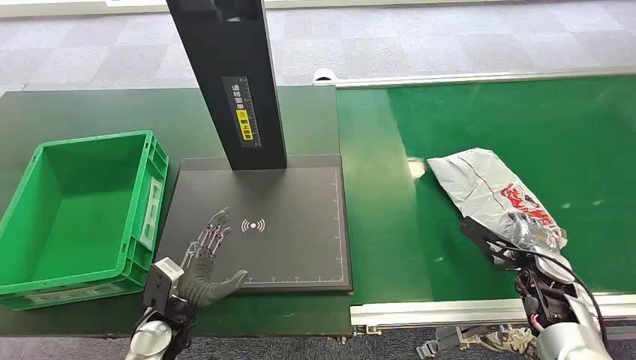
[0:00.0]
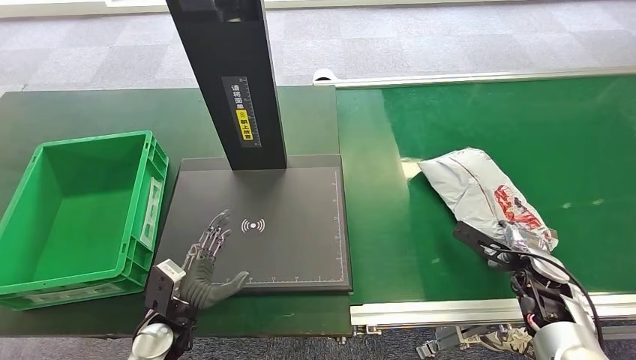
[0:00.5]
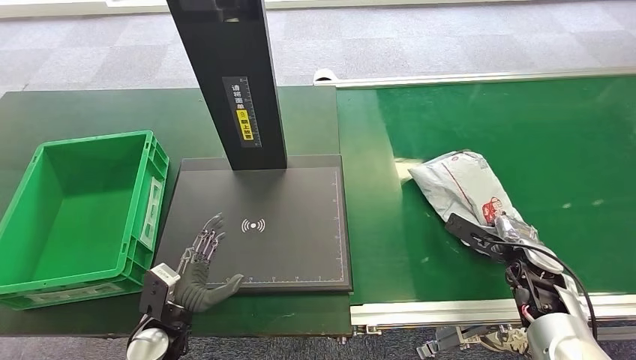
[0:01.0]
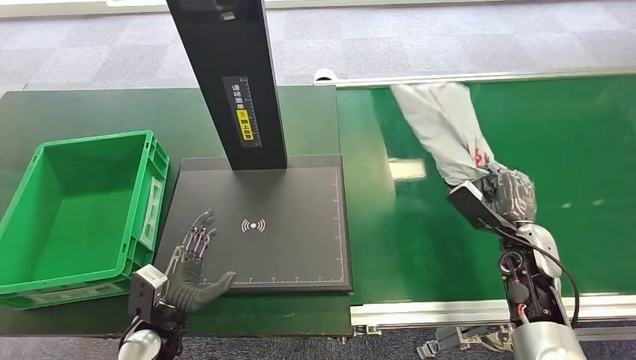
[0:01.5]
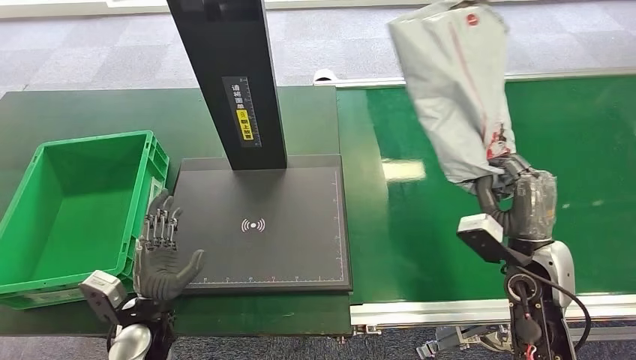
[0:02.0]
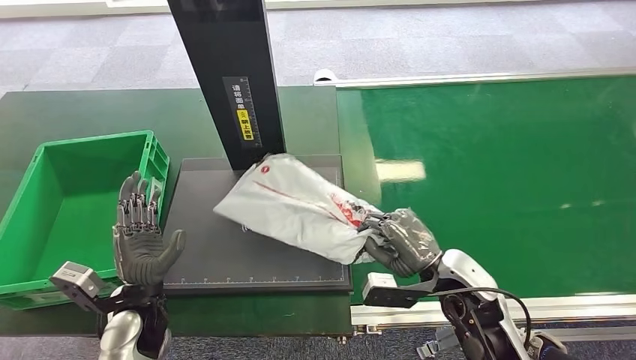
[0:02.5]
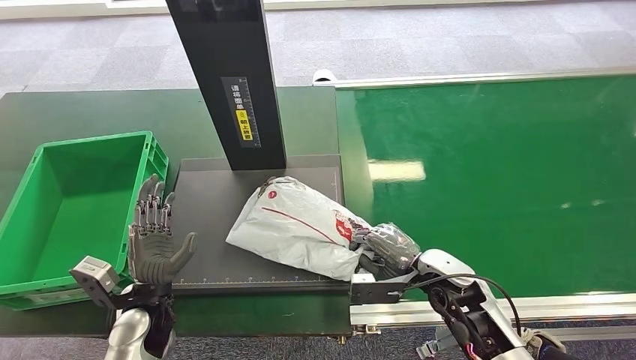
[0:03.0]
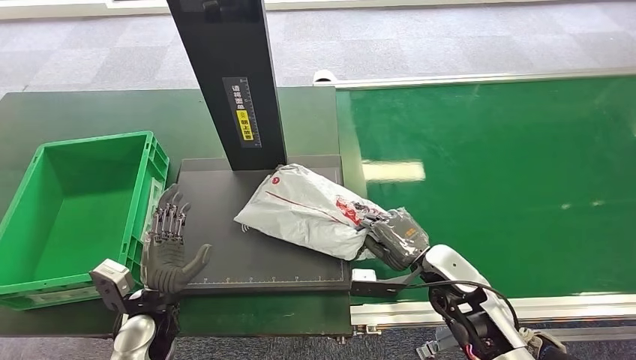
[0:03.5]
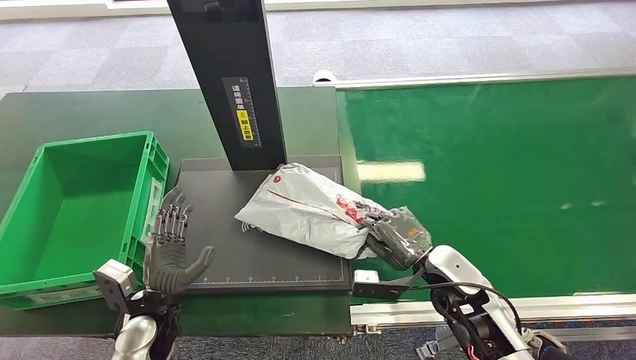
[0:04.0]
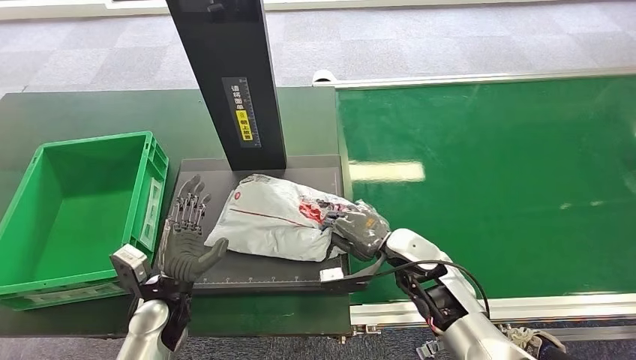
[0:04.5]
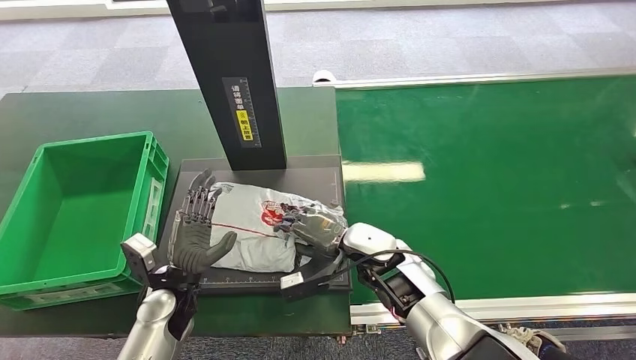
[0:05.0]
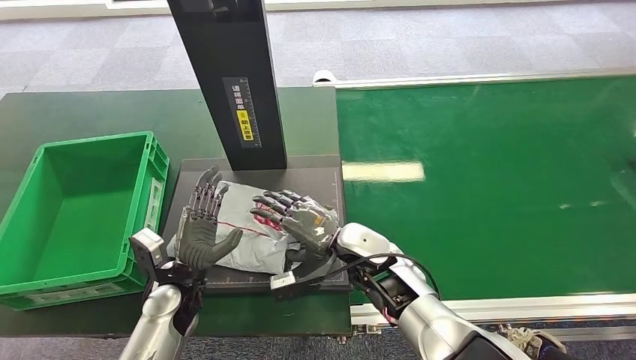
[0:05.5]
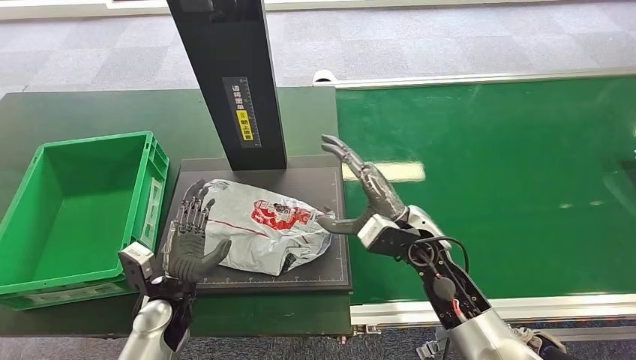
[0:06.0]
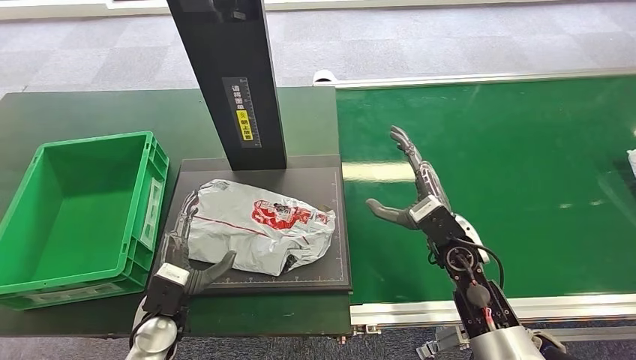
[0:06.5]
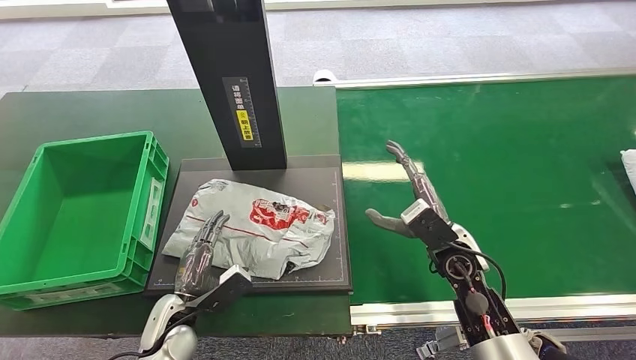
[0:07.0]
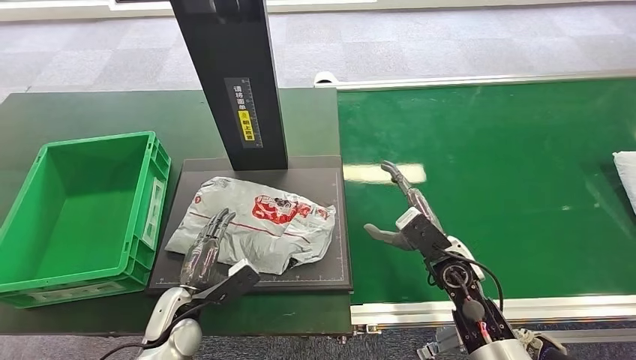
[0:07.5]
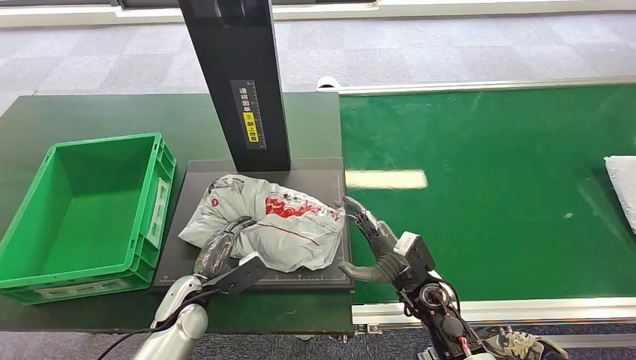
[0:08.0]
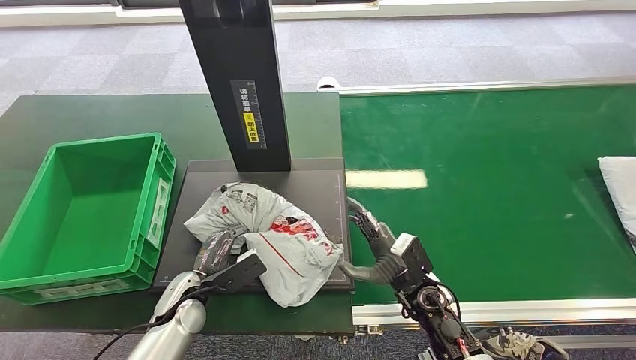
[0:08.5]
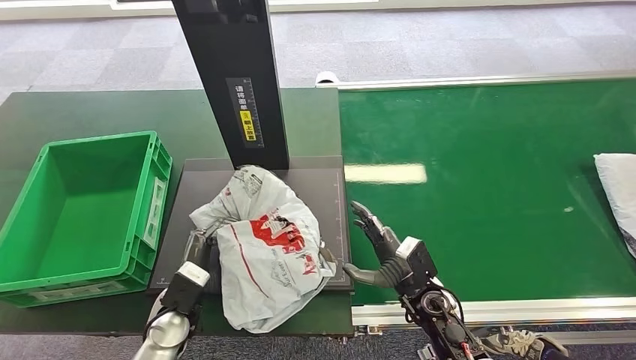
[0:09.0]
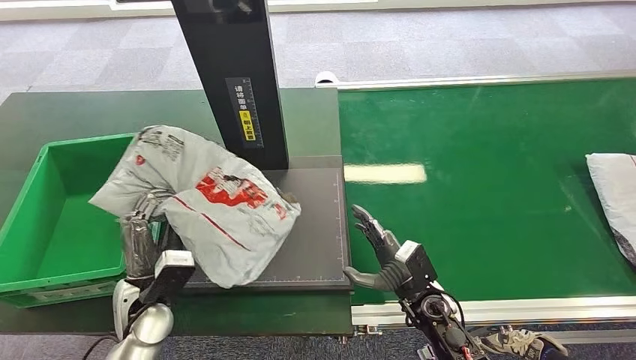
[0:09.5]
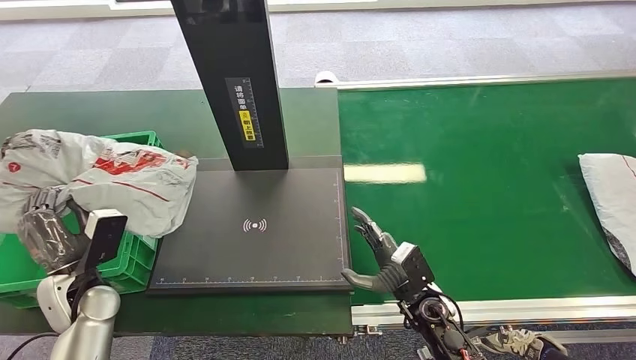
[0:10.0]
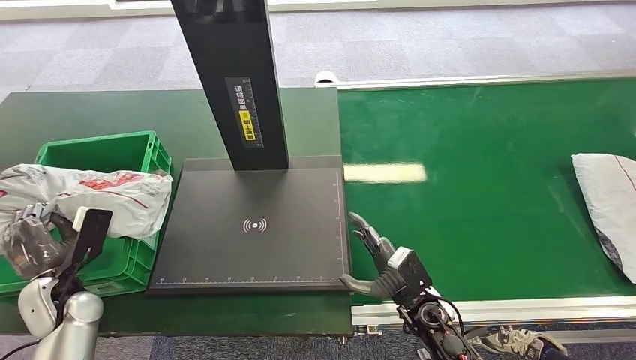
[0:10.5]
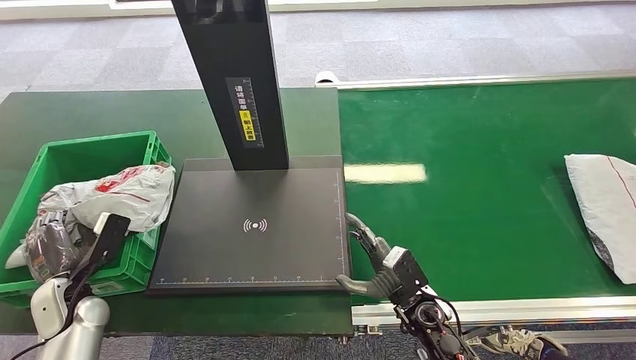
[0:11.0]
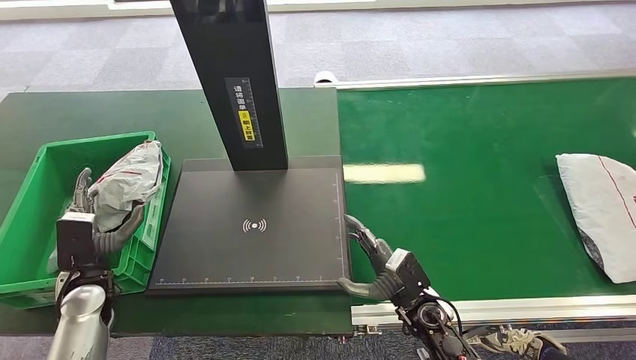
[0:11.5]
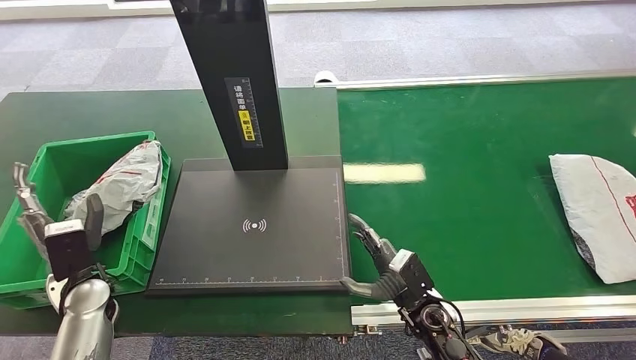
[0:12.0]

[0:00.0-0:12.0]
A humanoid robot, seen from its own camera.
Step, 0:00.0 to 0:02.0: Pick up the package from the conveyor belt.
Step, 0:02.5 to 0:07.0: Place the package onto the inbound machine.
Step, 0:07.5 to 0:09.5: Pick up the package from the inbound machine.
Step, 0:10.0 to 0:12.0: Place the package into the parcel locker.
0:04.0 to 0:06.0: The right hand goes approximately 10 cm to the left and upward.
